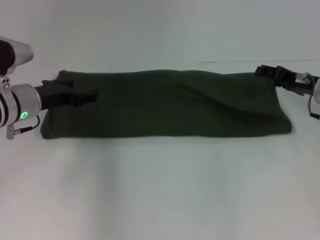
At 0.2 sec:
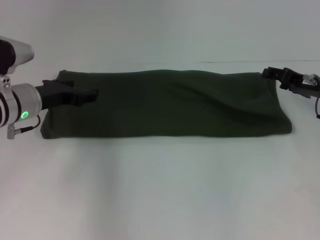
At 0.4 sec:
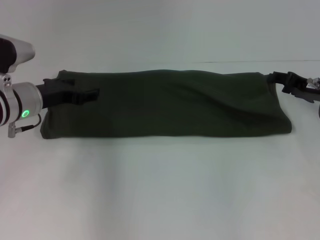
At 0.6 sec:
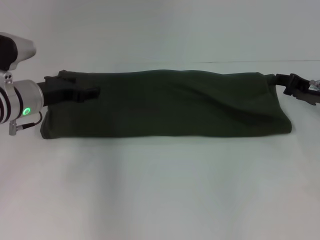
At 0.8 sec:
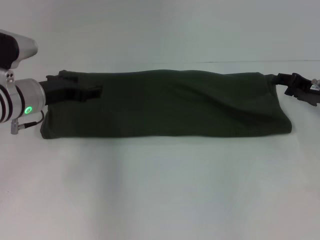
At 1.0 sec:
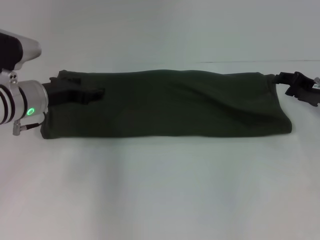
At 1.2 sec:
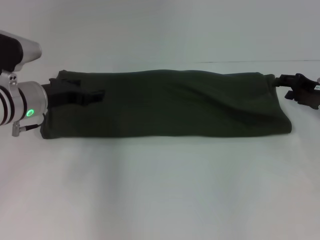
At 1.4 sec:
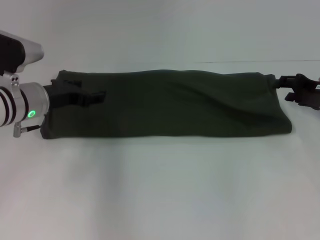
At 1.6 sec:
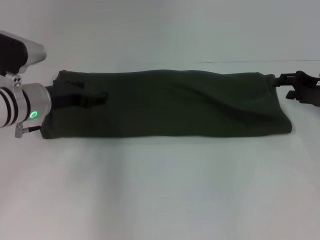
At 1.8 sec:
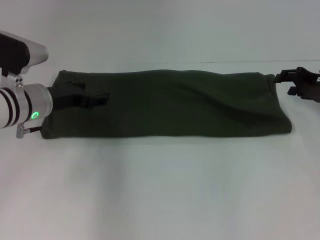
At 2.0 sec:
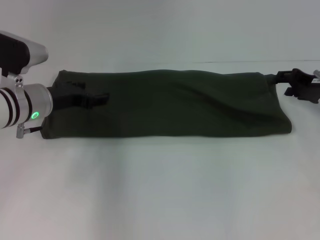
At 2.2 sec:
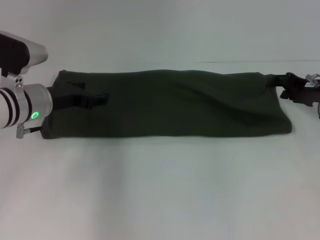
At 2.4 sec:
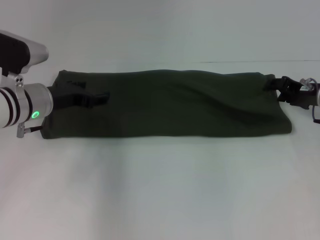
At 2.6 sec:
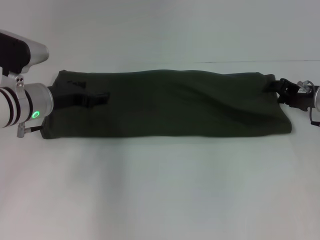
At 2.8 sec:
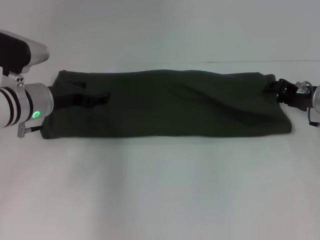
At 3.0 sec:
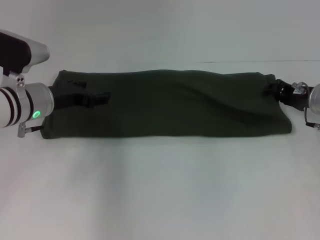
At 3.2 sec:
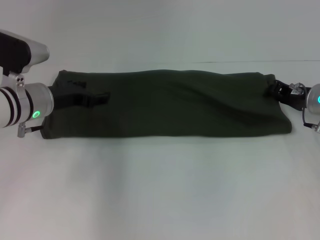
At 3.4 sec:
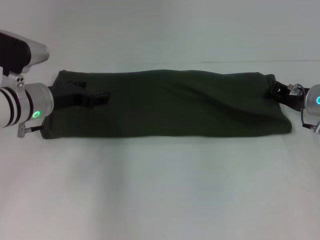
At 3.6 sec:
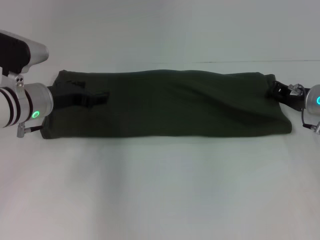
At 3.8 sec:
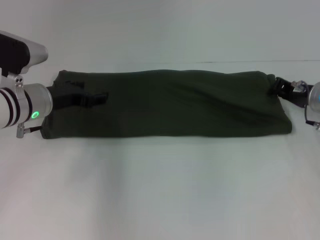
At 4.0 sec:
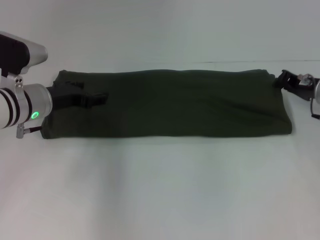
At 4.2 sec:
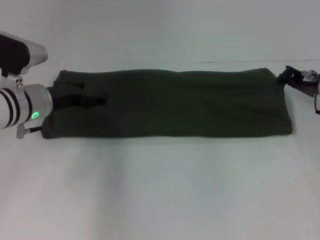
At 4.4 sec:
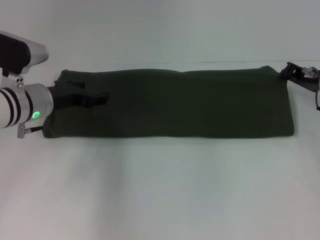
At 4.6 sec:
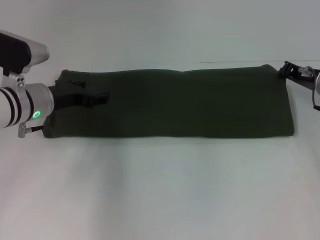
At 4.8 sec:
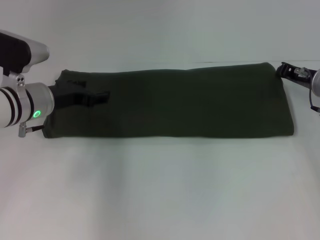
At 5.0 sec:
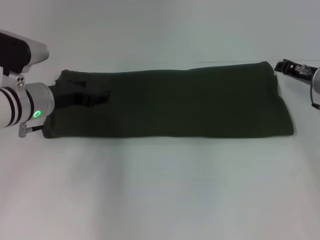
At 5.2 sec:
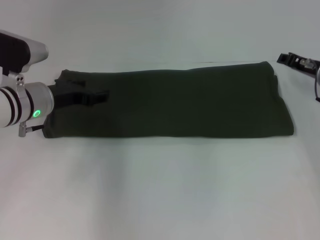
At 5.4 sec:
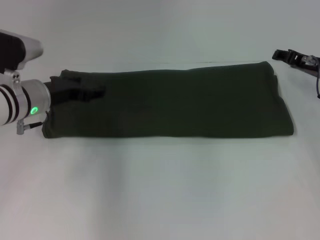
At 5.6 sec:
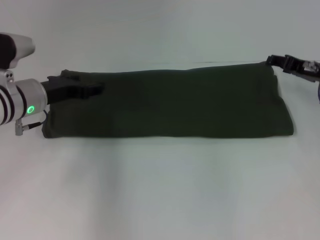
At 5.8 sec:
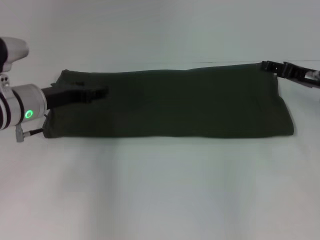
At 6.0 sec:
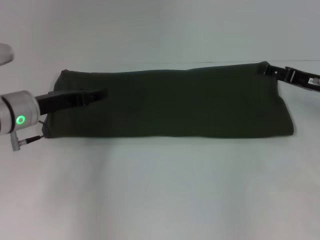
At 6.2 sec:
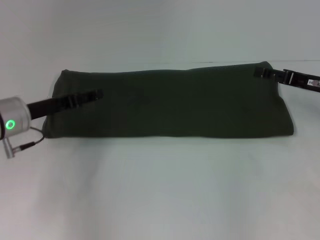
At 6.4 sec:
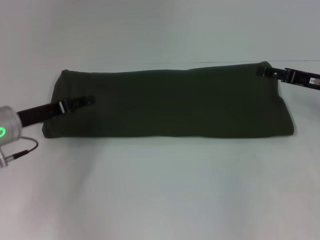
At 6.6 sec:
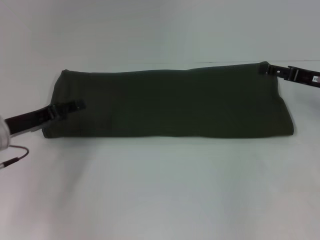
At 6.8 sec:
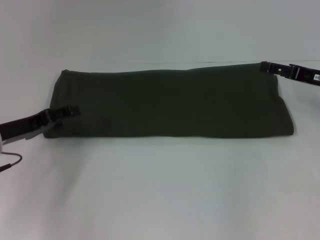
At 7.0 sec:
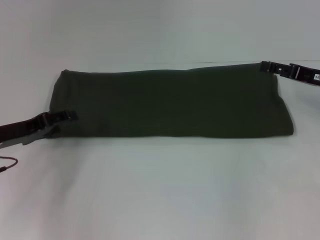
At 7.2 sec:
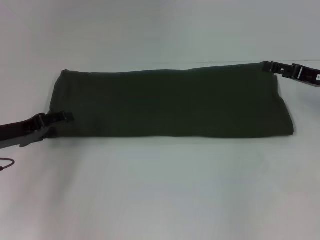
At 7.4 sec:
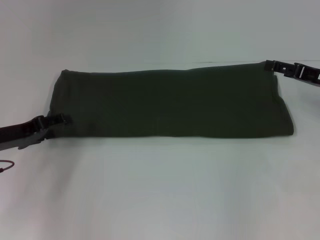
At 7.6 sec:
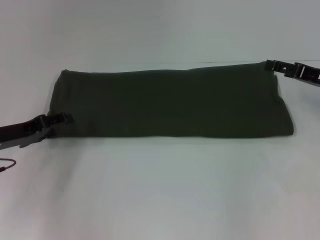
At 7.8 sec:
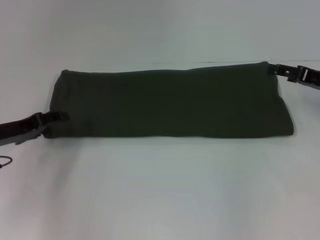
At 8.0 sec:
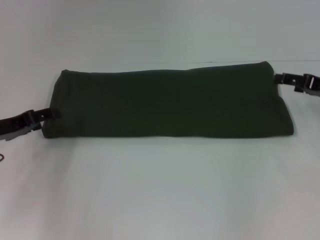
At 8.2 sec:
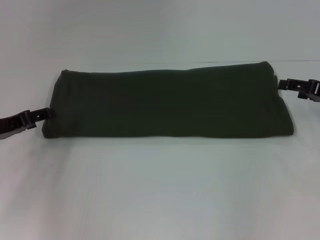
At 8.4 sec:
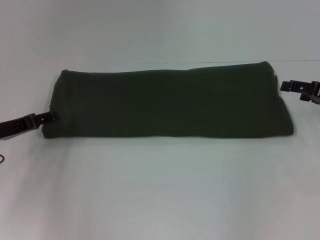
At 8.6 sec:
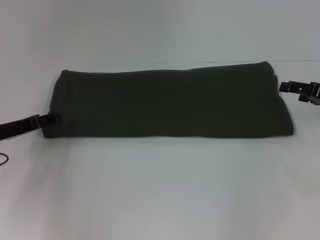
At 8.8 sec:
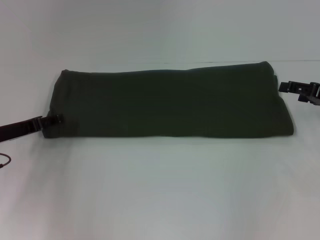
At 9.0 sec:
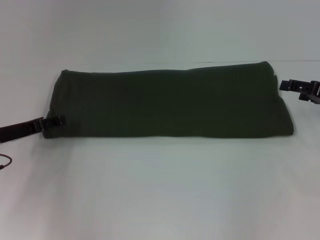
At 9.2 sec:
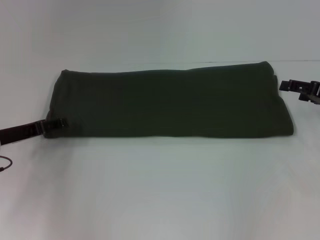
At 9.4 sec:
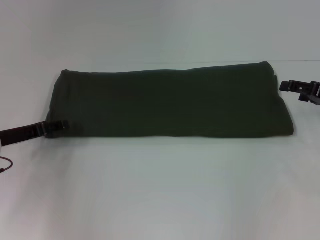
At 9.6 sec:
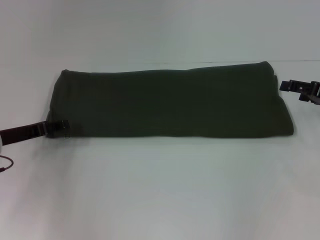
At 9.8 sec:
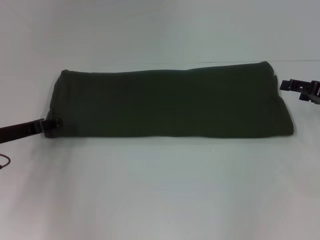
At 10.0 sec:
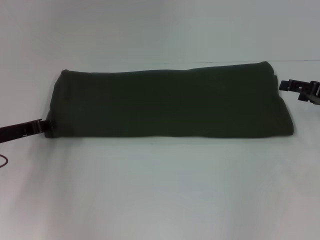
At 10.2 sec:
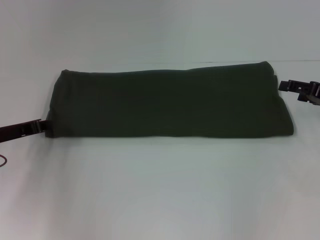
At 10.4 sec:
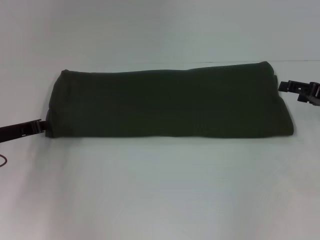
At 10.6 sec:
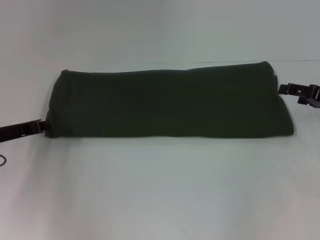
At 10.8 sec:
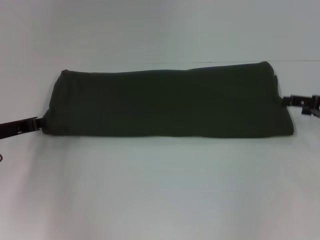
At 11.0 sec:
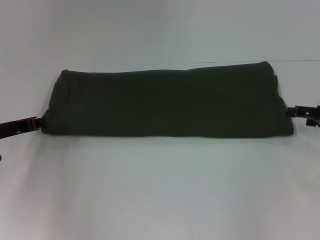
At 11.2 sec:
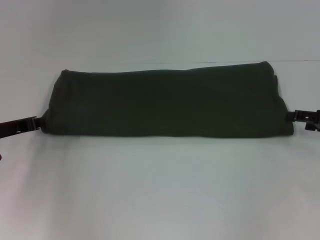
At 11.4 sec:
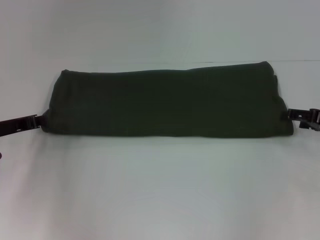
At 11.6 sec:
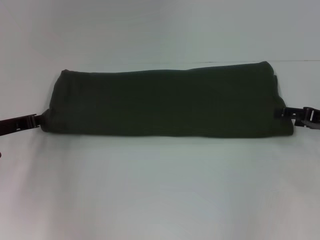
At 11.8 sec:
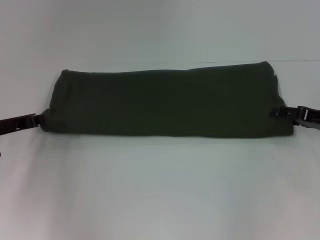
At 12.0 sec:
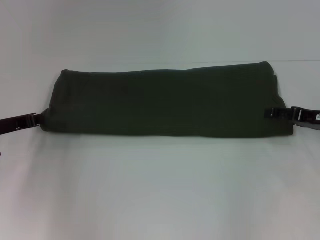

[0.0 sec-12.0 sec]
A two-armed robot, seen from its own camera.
0.0 sec to 1.6 sec: The grippers stay close to where they were, moving slightly.
1.6 sec to 3.0 sec: The right gripper ends up roughly 5 cm from where it was.
3.0 sec to 4.4 sec: The right gripper closes up.
4.4 sec to 6.0 sec: The right gripper opens.
6.0 sec to 7.6 sec: The left gripper goes about 5 cm to the left.
7.6 sec to 9.0 sec: The grippers make only small movements.
10.4 sec to 12.0 sec: The grippers stay close to where they were, moving slightly.

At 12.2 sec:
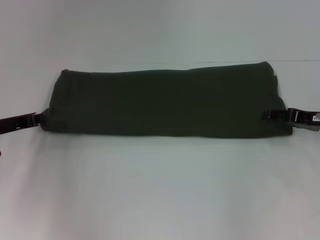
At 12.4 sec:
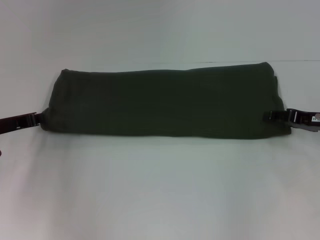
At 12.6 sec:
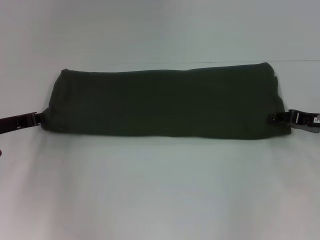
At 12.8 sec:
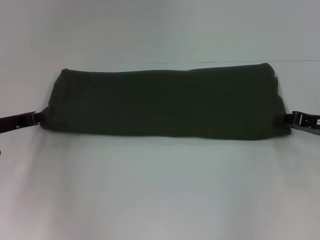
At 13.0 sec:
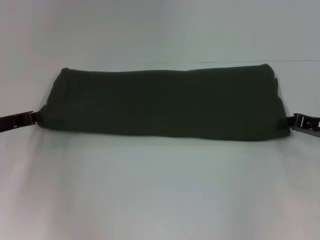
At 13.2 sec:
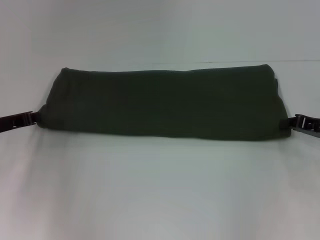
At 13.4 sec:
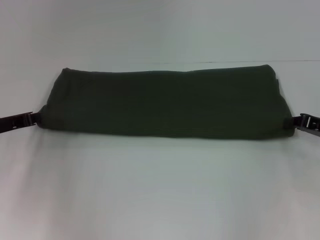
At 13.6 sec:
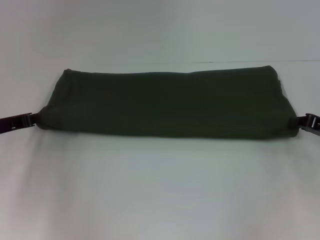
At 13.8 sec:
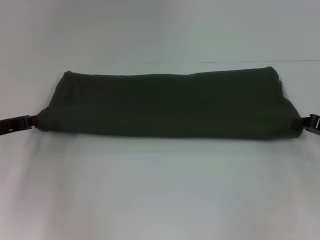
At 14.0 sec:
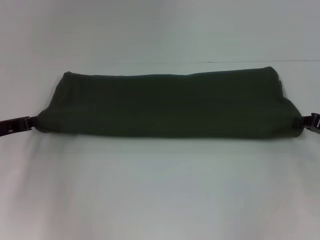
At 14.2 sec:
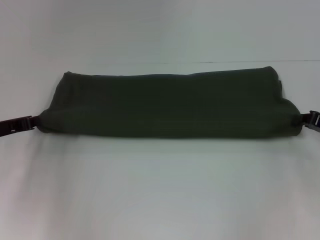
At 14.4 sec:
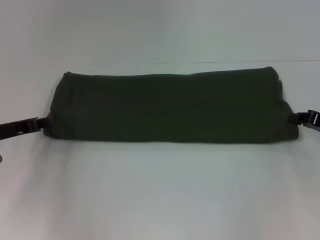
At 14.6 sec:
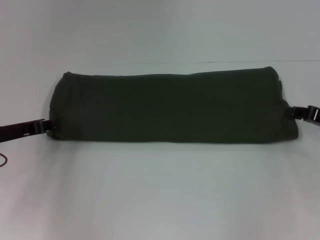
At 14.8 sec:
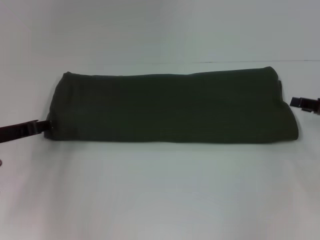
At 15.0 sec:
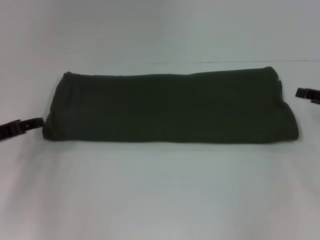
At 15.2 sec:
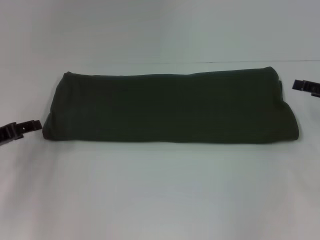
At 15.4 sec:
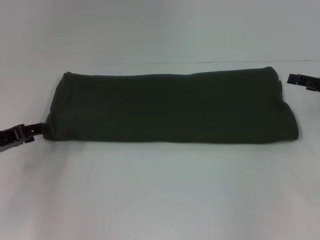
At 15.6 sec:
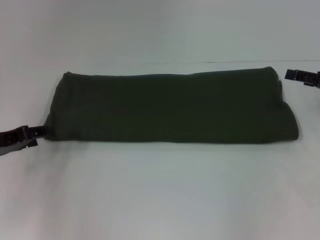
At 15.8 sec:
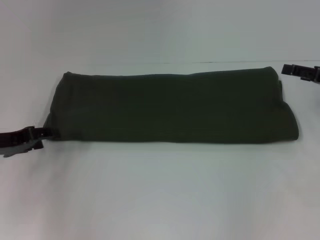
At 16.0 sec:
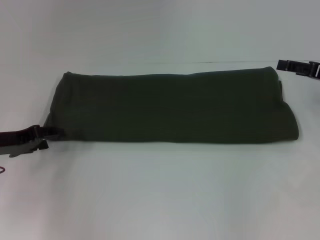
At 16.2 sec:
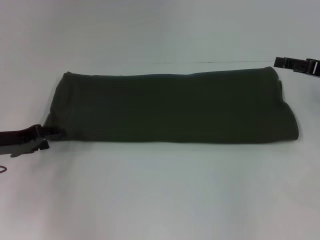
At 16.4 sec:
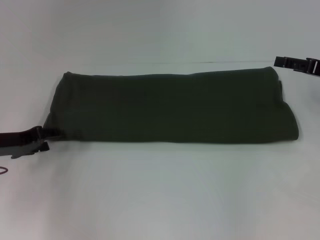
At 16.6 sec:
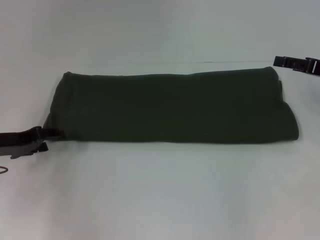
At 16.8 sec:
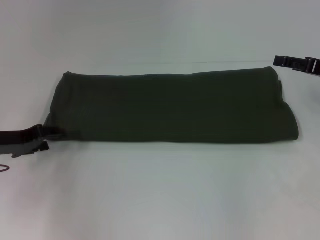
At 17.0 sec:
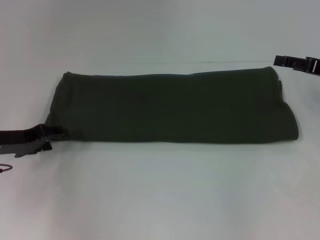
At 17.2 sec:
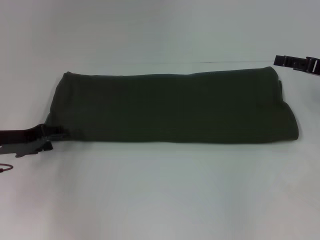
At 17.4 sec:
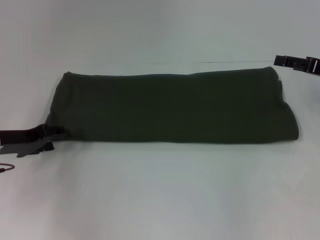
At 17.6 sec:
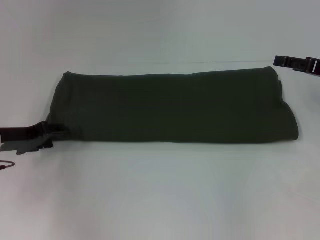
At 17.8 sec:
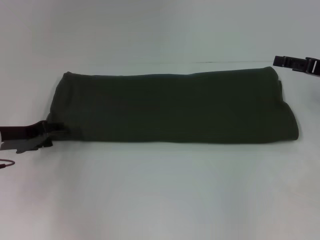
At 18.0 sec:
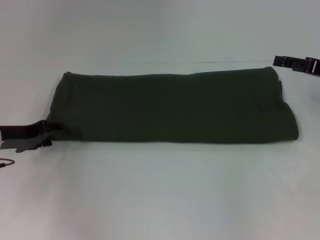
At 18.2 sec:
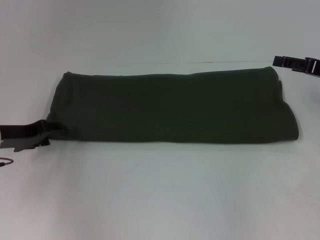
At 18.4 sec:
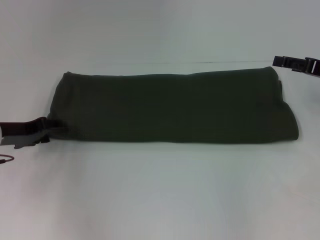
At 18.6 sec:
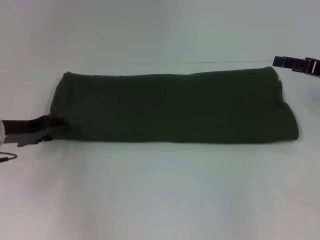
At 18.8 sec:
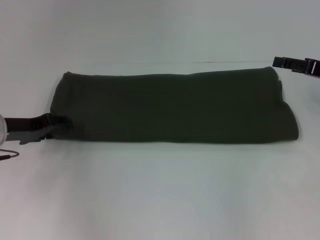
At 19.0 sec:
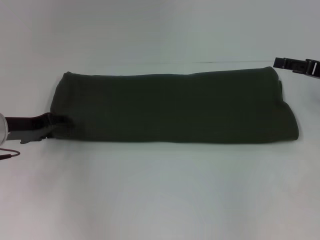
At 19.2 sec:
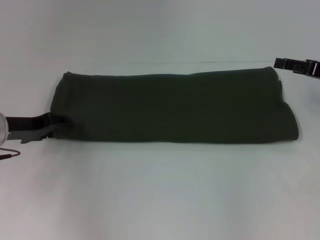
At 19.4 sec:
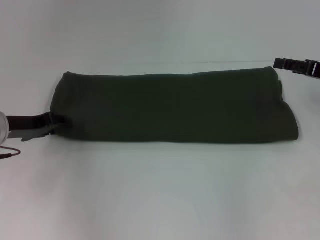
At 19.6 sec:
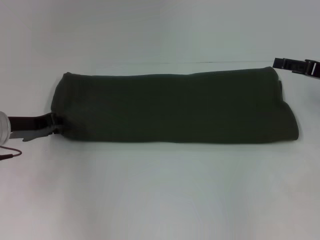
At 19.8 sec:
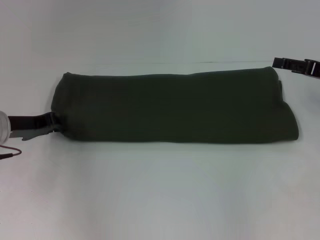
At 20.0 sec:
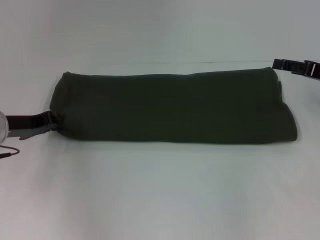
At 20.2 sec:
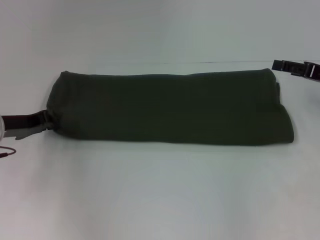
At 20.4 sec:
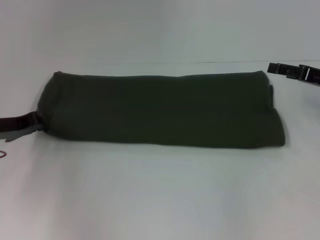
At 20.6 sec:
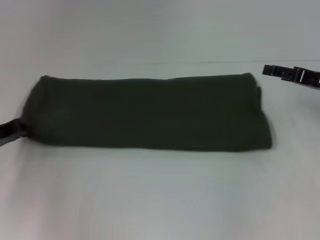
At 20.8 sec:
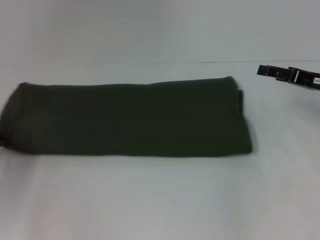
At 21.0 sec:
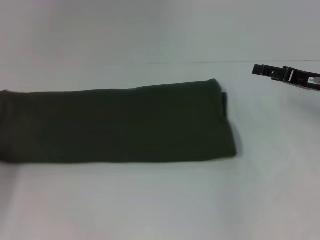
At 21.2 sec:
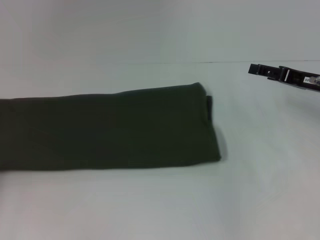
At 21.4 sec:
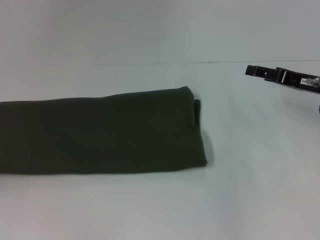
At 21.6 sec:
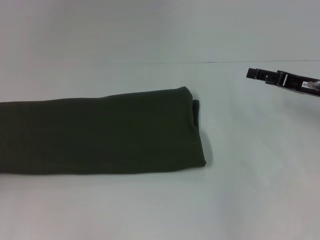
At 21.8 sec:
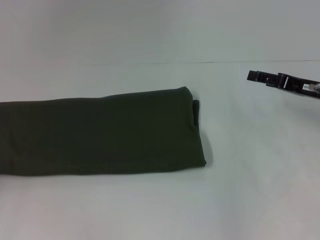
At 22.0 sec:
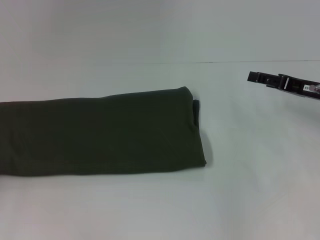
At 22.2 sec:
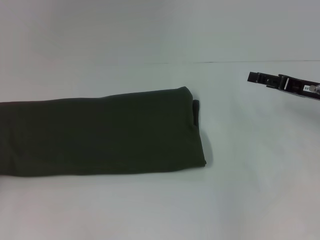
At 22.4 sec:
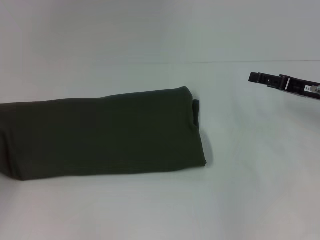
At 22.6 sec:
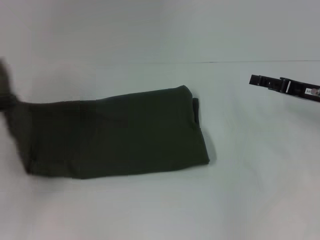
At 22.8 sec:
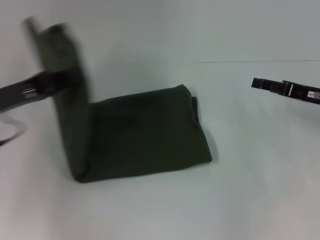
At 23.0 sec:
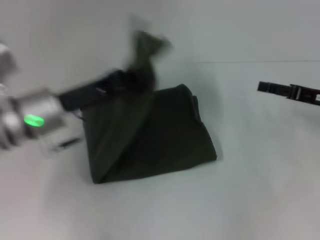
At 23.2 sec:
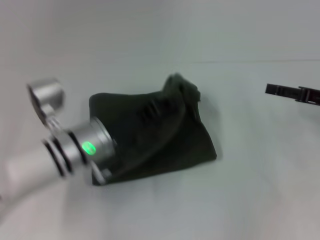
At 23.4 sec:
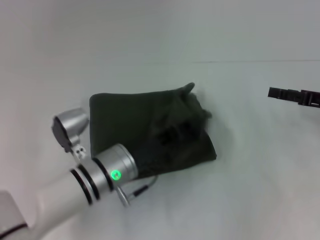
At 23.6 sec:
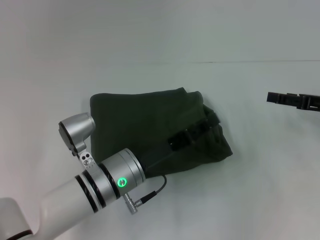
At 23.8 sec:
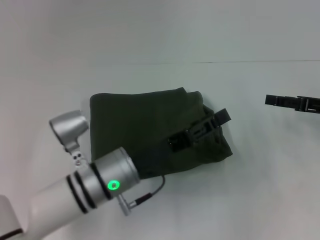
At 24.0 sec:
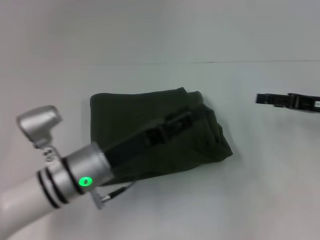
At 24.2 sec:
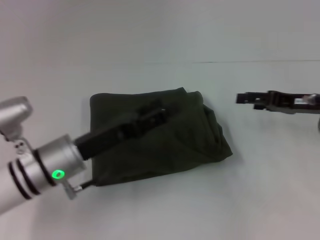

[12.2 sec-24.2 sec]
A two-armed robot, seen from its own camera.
Step, 12.2 sec to 23.8 sec: Fold the clothes with your left hand.
12.2 sec to 13.8 sec: The right gripper closes.
13.8 sec to 15.2 sec: The right gripper opens its fingers; the left gripper opens.
15.2 sec to 16.6 sec: The right gripper shifts by roughly 5 cm.
16.6 sec to 18.2 sec: The grippers move only a little.
18.2 sec to 19.8 sec: The left gripper closes its fingers.
19.8 sec to 21.2 sec: The left gripper shifts about 15 cm to the left and backward.
21.2 sec to 22.6 sec: The left gripper heads upward and to the right, covering about 10 cm.
22.6 sec to 24.2 sec: The left gripper travels to the right by some 20 cm, and opens up.
